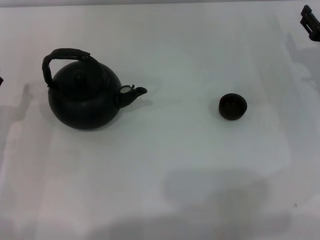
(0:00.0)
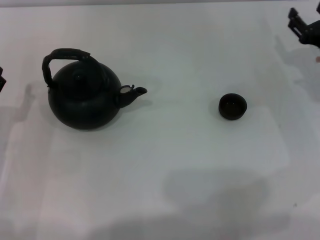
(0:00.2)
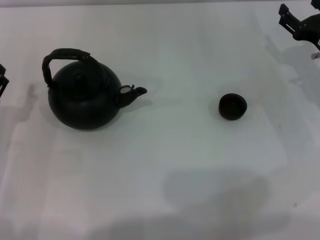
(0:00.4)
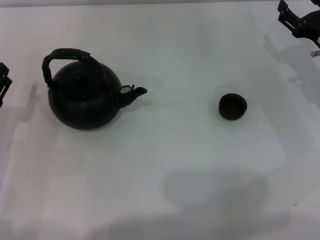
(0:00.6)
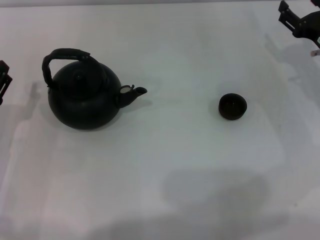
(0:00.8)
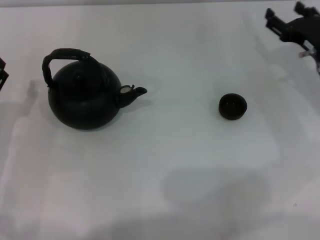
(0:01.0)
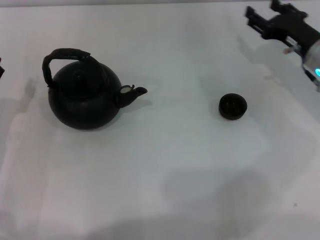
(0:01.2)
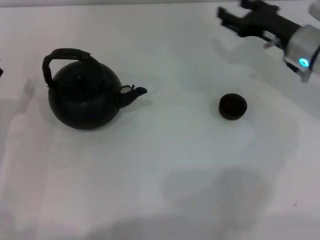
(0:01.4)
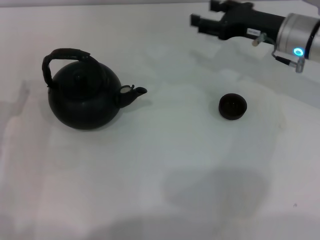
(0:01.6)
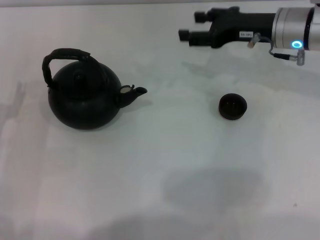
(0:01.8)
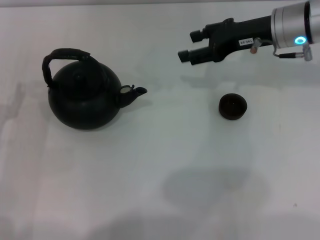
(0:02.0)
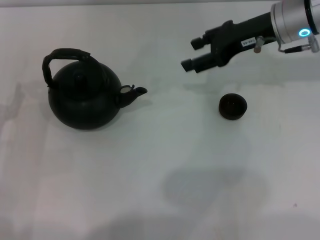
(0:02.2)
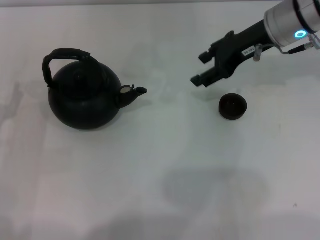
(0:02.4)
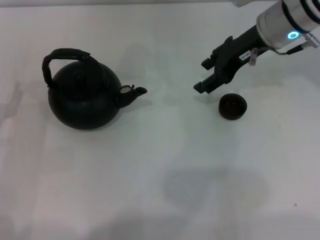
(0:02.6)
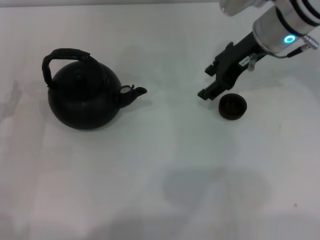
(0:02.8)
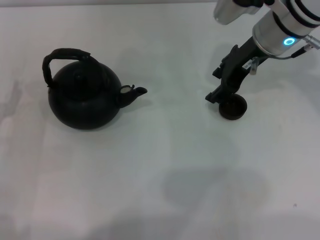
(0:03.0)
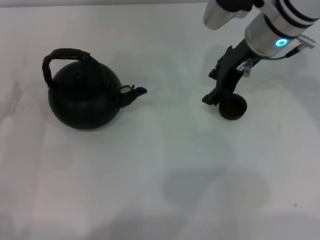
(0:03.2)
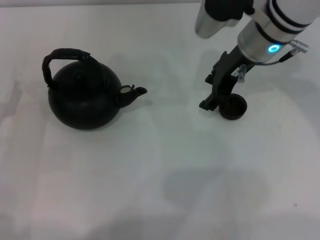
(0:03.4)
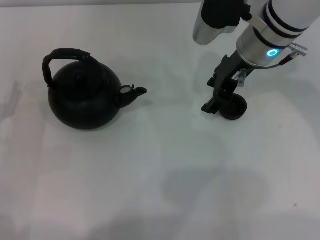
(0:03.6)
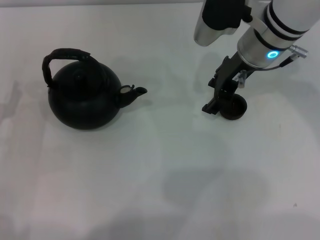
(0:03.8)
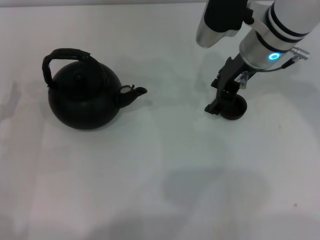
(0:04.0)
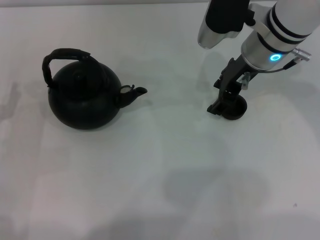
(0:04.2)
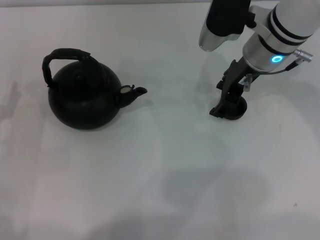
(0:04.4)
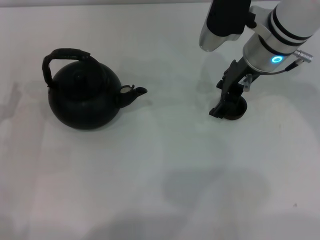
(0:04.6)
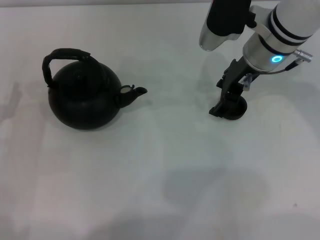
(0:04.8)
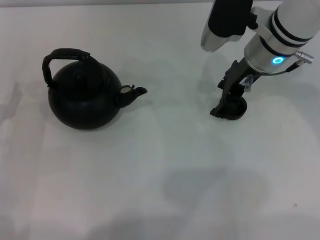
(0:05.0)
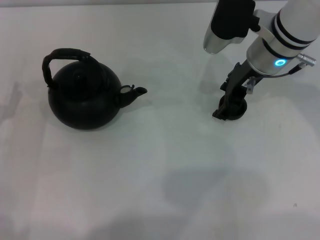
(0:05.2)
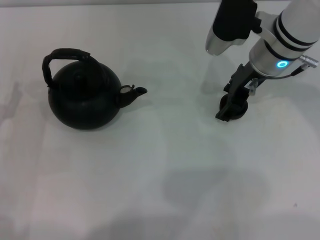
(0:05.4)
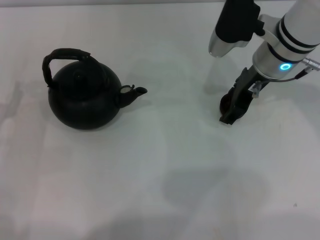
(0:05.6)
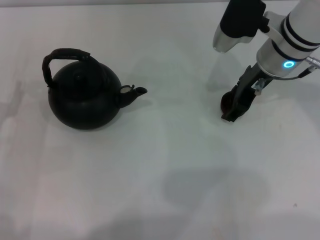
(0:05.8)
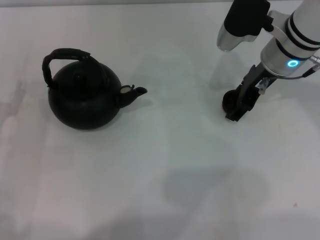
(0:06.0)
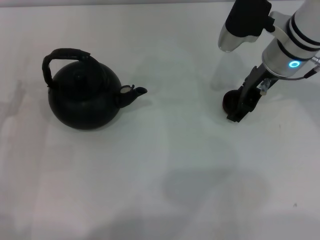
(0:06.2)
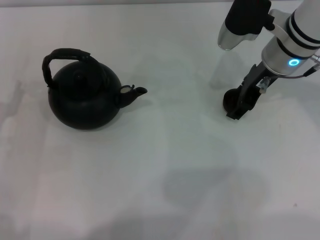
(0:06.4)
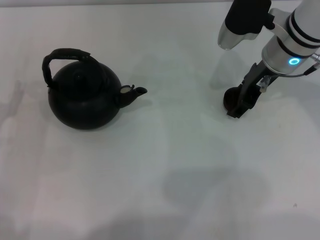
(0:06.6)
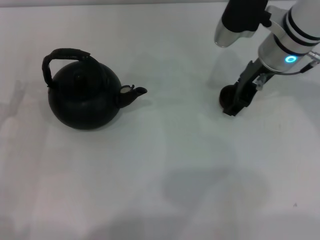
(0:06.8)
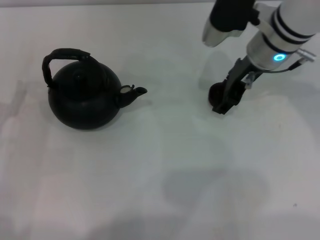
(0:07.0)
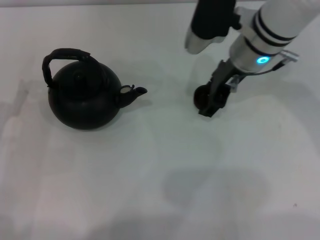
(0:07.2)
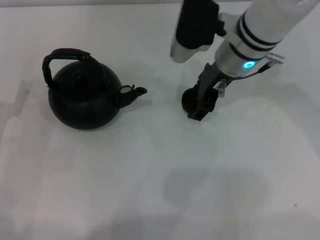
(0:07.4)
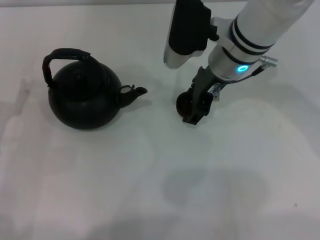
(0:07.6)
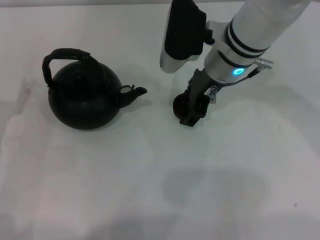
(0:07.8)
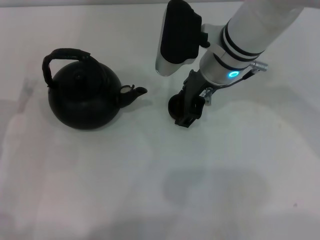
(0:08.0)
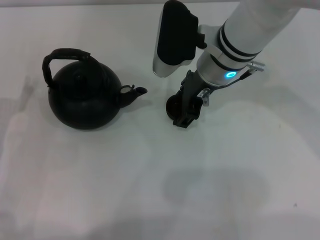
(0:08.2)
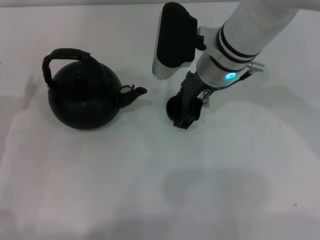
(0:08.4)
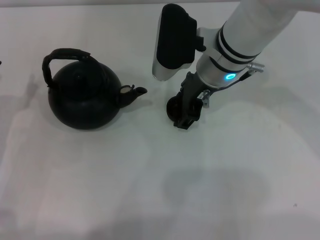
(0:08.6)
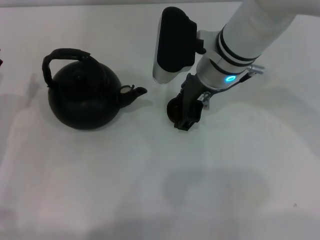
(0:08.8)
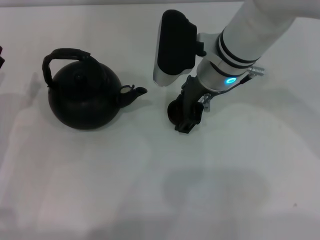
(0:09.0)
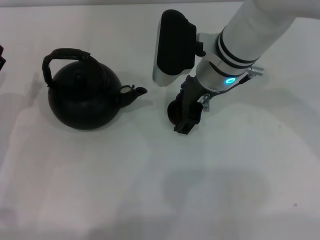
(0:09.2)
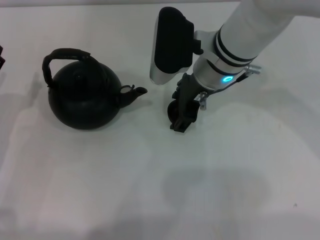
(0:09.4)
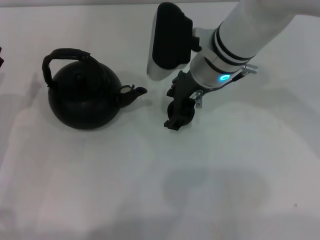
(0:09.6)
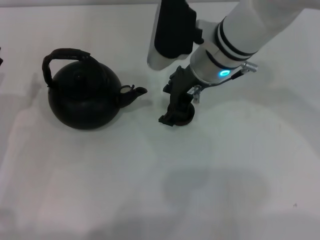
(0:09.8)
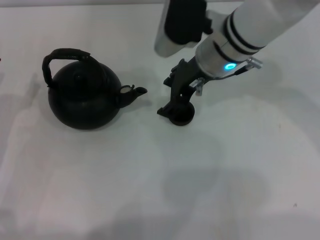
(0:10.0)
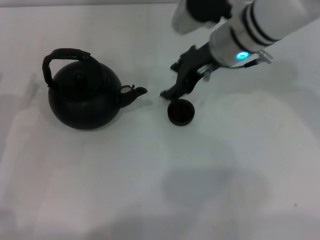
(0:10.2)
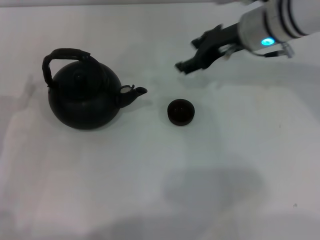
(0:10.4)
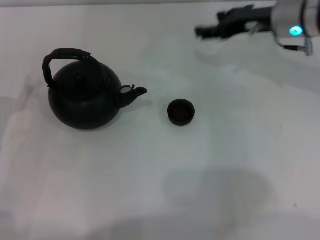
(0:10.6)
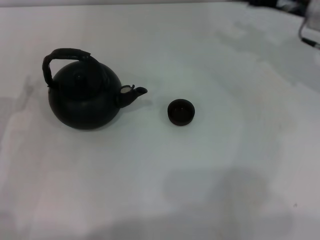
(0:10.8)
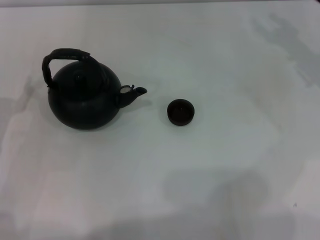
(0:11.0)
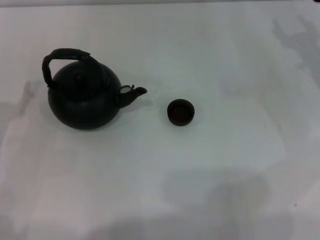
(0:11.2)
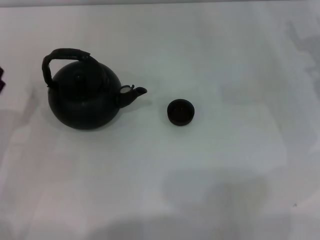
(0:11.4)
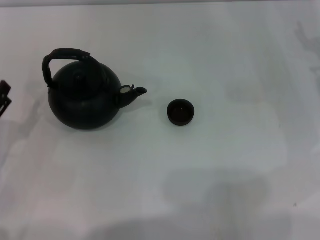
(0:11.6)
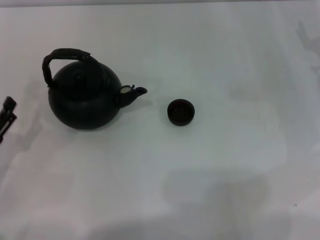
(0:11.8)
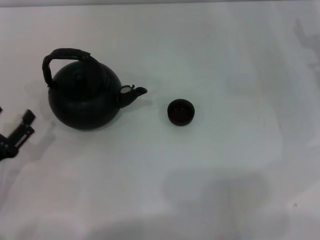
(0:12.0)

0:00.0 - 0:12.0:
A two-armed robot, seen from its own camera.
Task of the whole recording: Grasp the handle of the teapot with one hand and pour tea into the teacup.
Step, 0:00.0 - 0:06.8: Pick up the teacup with the right gripper.
Step, 0:07.0 - 0:10.2: Place the teacup in the center of view with the right gripper.
0:00.0 - 0:01.6: The right gripper is displaced to the left, upward and forward by about 15 cm.
0:01.6 - 0:03.0: The right gripper goes about 10 cm to the left and upward.
0:03.0 - 0:06.0: The grippers move only a little.
0:06.0 - 0:07.6: The right gripper goes about 10 cm to the left.
0:07.6 - 0:09.0: The grippers stay close to where they were, moving slightly.
0:09.0 - 0:10.4: The right gripper shifts about 10 cm to the right.
0:10.4 - 0:12.0: The left gripper heads backward, covering about 5 cm. Meanwhile the right gripper travels to the right and downward by roughly 20 cm.

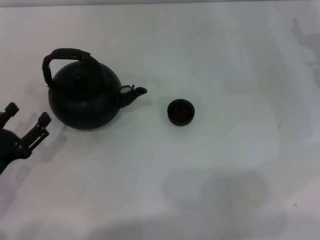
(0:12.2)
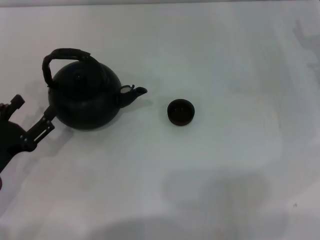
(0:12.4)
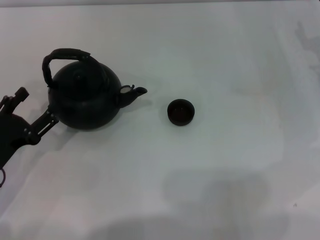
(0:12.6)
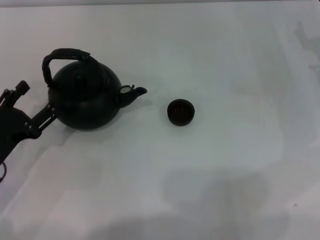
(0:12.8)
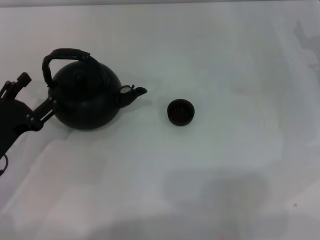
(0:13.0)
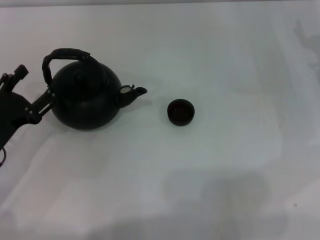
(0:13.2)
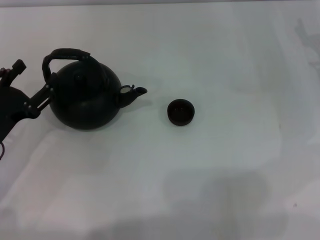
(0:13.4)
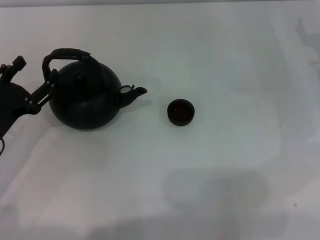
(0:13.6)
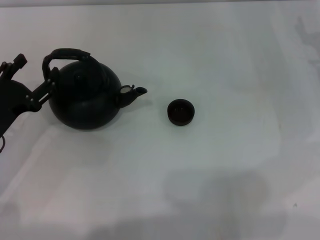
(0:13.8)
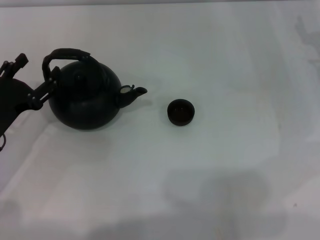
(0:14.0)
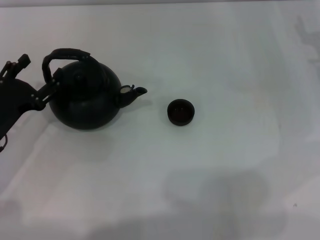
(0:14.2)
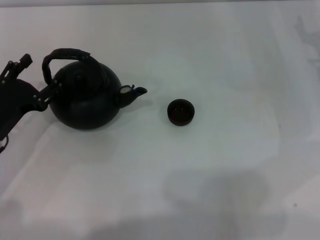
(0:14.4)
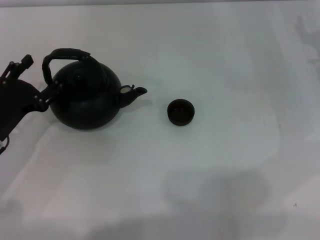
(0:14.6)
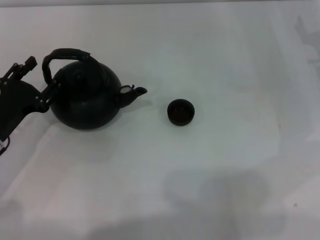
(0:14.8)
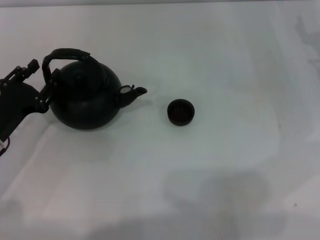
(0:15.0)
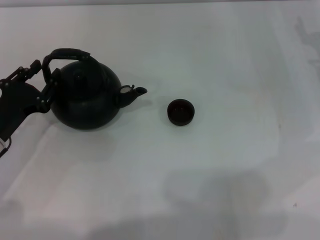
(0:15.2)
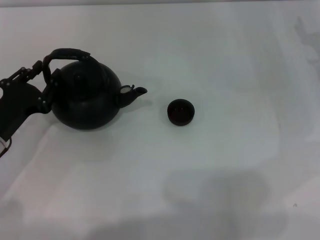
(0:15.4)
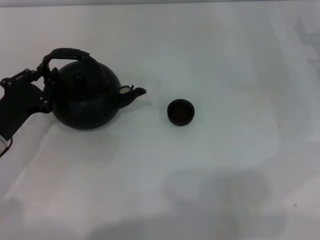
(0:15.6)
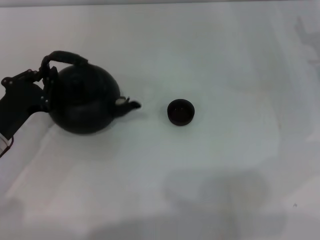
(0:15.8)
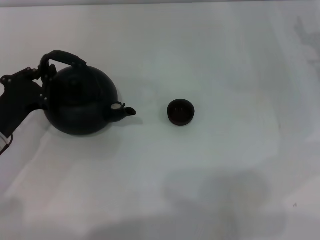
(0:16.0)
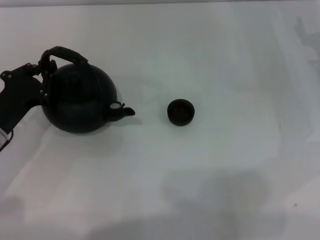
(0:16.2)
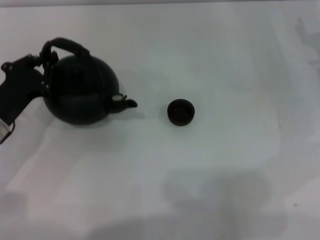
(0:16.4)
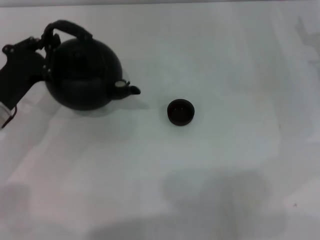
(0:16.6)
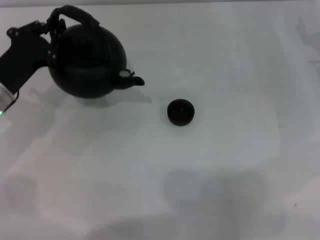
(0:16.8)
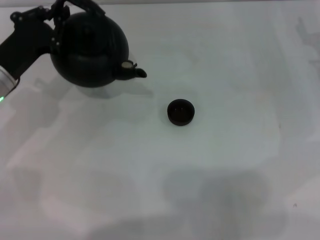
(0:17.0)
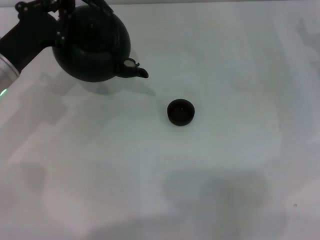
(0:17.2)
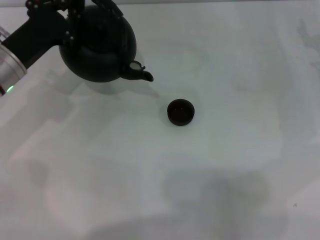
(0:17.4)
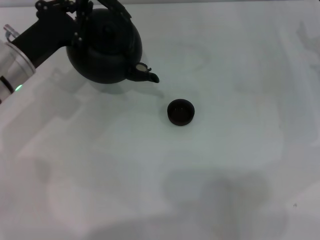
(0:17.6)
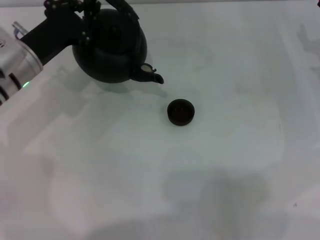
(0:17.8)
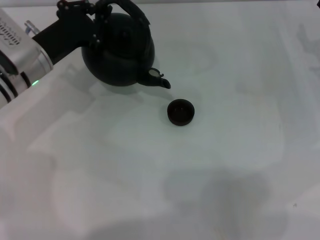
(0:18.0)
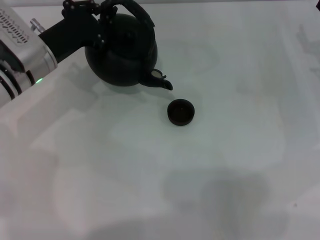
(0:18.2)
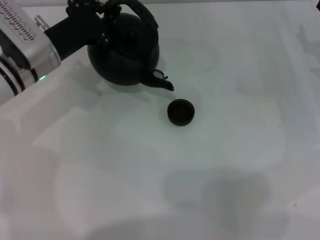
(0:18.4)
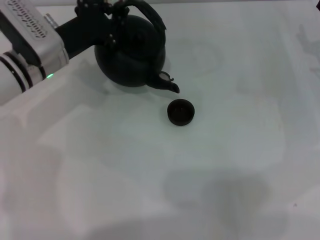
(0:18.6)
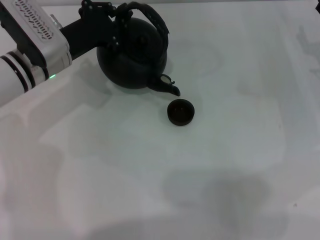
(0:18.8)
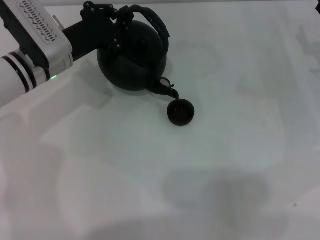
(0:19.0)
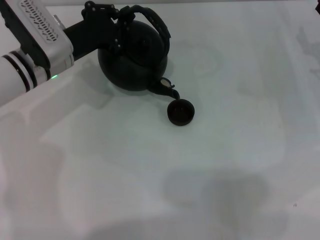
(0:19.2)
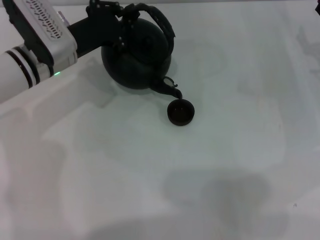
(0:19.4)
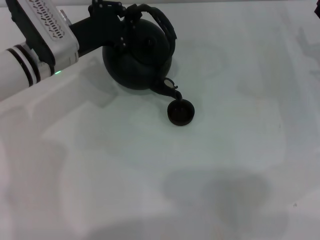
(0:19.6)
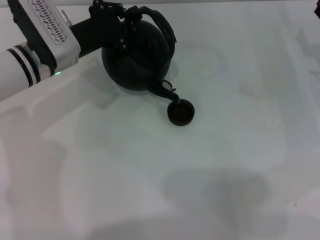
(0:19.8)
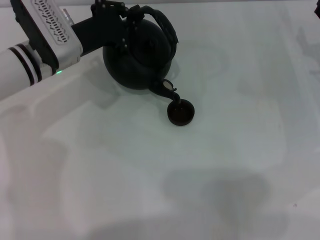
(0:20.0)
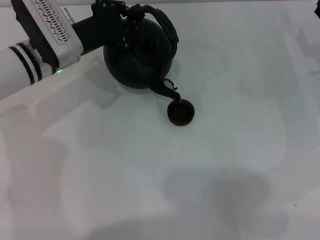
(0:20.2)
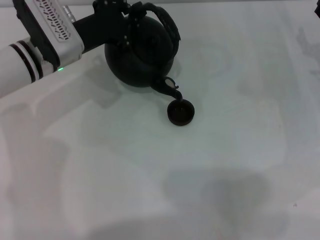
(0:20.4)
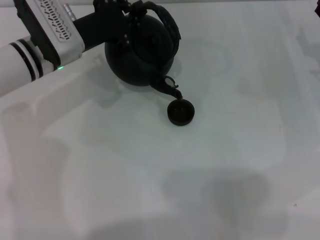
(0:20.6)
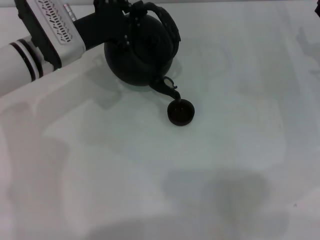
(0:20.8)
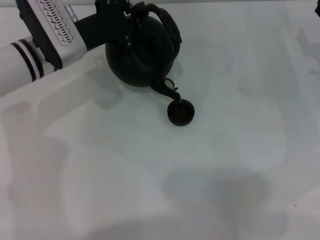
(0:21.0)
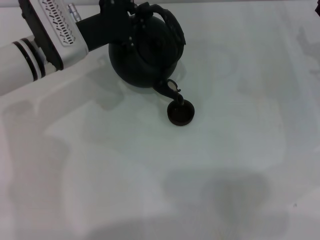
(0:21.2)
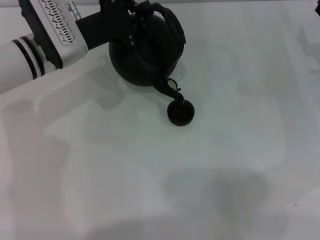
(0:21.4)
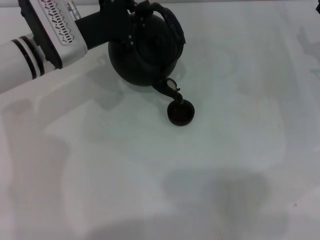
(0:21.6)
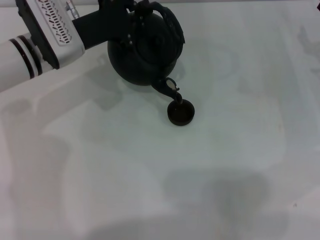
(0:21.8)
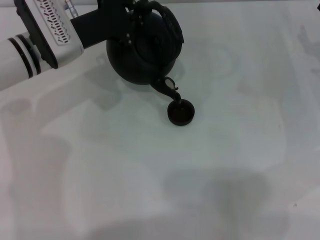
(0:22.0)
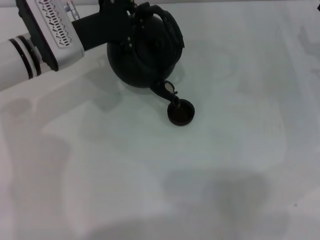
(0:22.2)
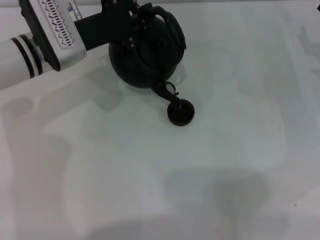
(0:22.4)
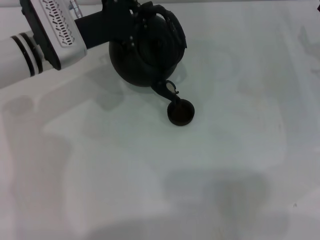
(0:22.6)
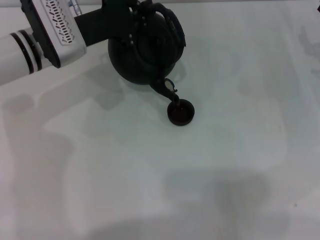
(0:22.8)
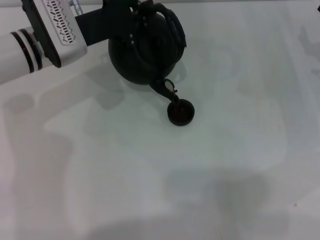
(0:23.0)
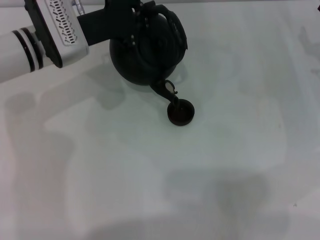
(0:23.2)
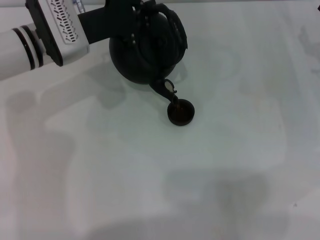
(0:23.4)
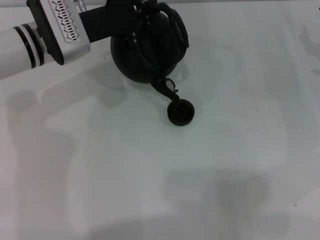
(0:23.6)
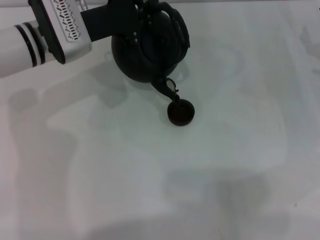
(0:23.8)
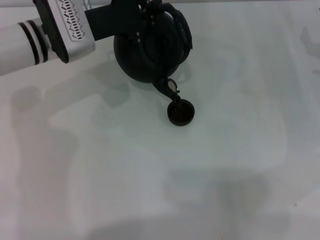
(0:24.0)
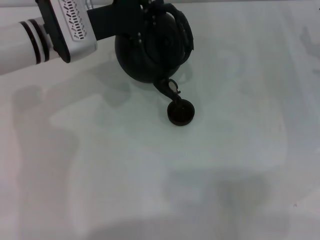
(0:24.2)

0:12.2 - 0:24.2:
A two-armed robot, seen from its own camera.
Task of the whole recording: Grasp the handle of the teapot with one hand and pour tea into the teacup.
Step, 0:12.2 - 0:16.6: Pick up the teapot with the left gripper.
0:12.2 - 0:13.8: The left gripper is displaced forward by approximately 5 cm.
0:13.8 - 0:15.2: The grippers make only small movements.
0:15.2 - 0:16.6: The left gripper closes up.
0:16.6 - 0:18.2: The left gripper heads forward and to the right, covering some 10 cm.
0:18.2 - 0:21.2: There are only small adjustments of the grippers.
0:21.2 - 0:22.6: Neither gripper changes place.
0:22.6 - 0:24.2: The grippers move only a little.
